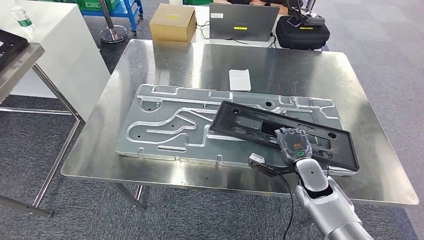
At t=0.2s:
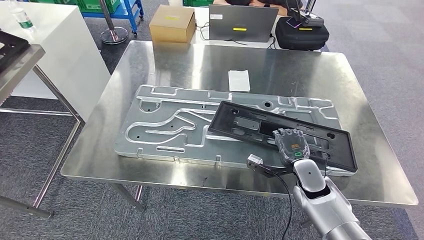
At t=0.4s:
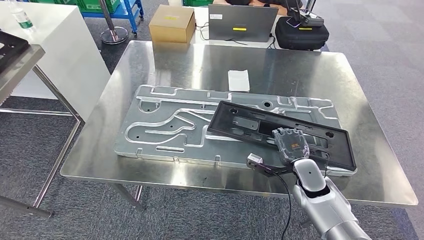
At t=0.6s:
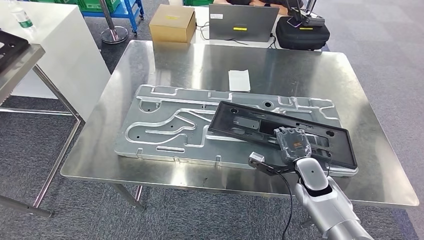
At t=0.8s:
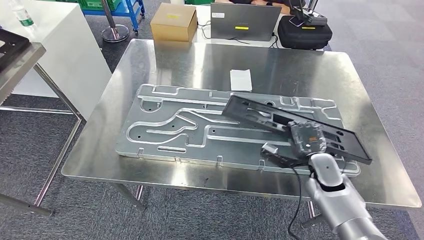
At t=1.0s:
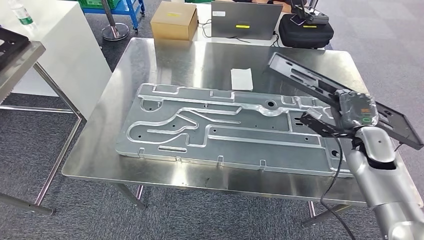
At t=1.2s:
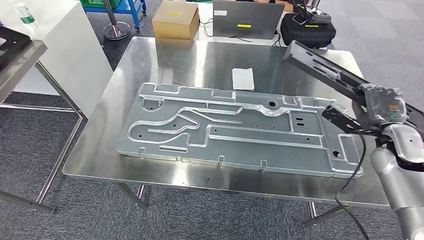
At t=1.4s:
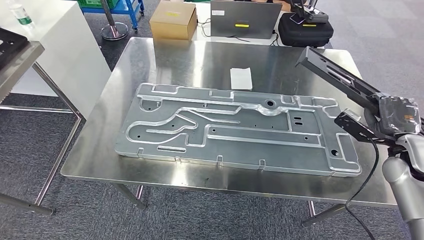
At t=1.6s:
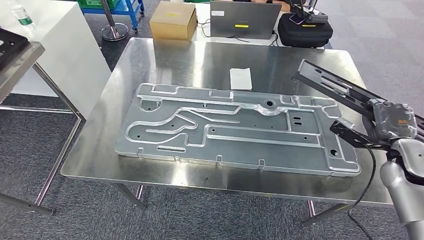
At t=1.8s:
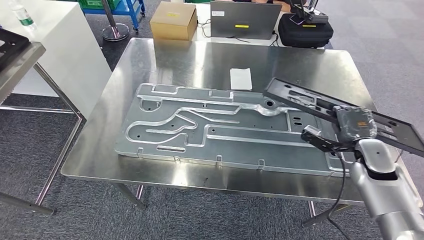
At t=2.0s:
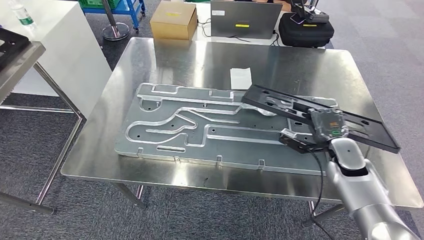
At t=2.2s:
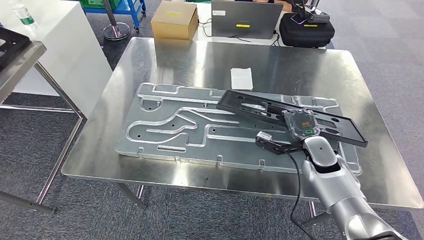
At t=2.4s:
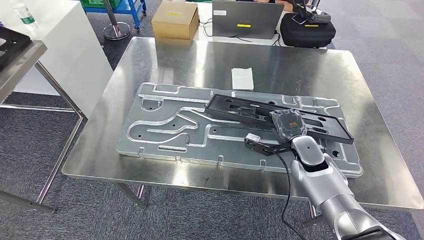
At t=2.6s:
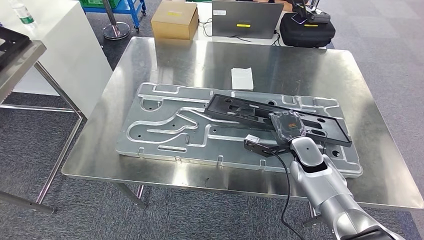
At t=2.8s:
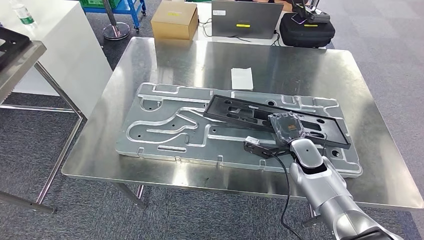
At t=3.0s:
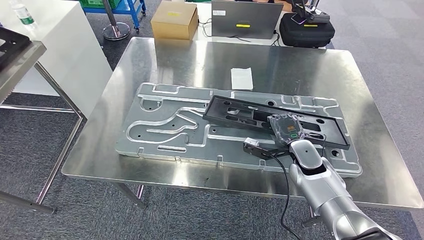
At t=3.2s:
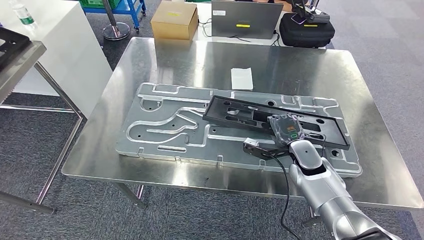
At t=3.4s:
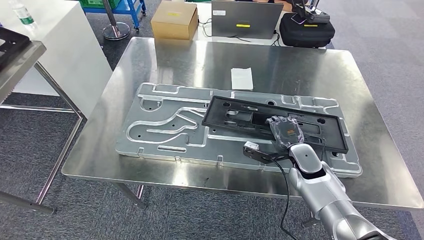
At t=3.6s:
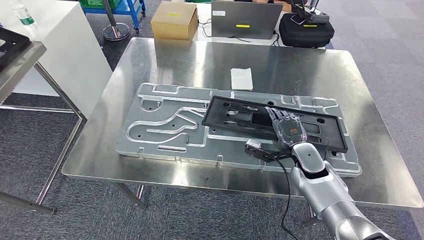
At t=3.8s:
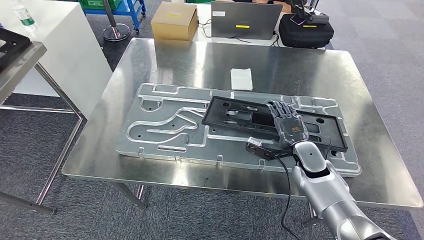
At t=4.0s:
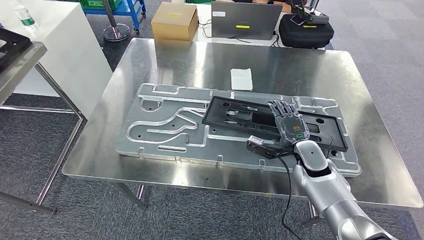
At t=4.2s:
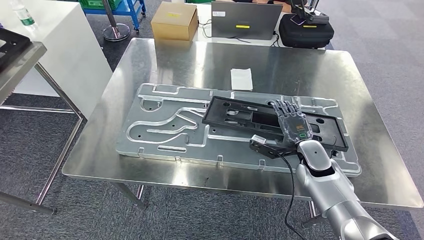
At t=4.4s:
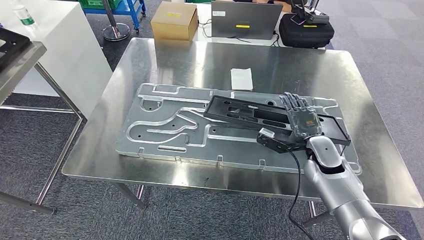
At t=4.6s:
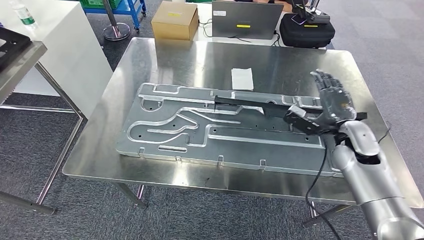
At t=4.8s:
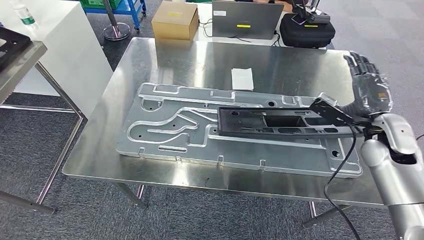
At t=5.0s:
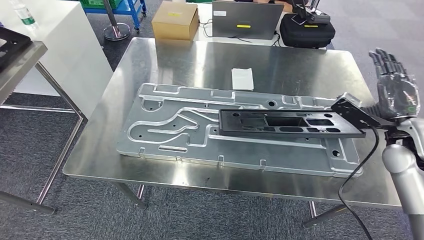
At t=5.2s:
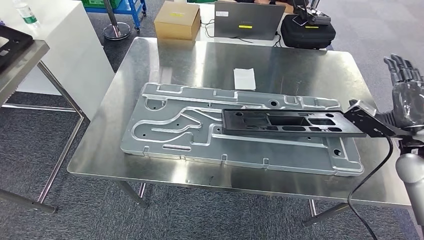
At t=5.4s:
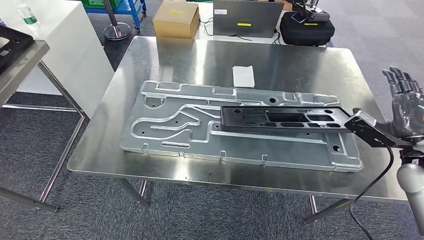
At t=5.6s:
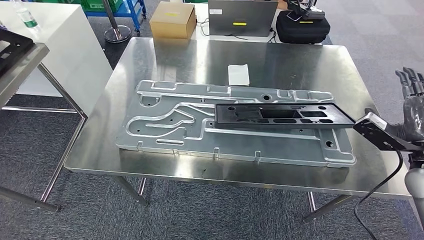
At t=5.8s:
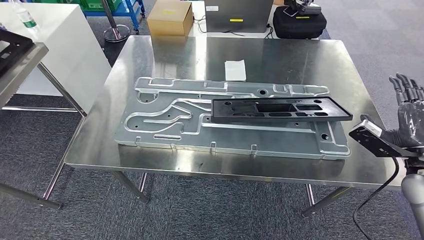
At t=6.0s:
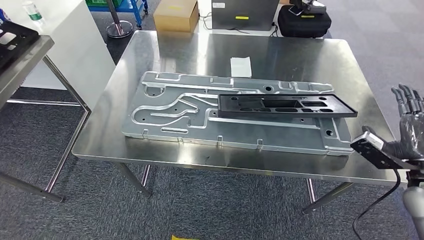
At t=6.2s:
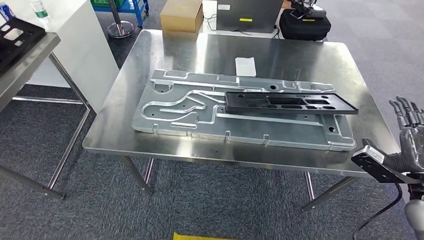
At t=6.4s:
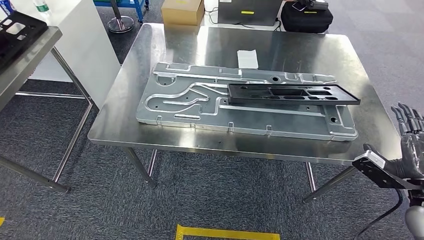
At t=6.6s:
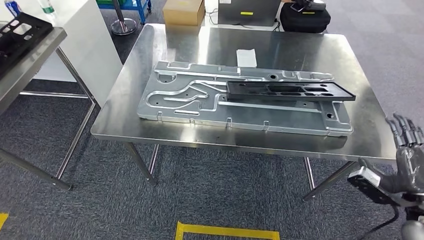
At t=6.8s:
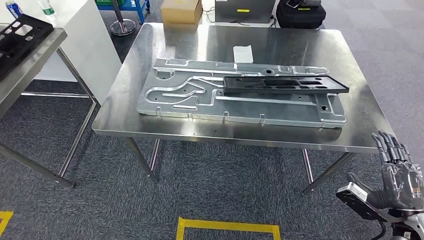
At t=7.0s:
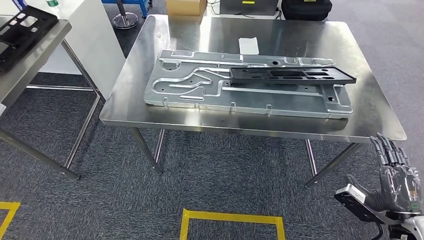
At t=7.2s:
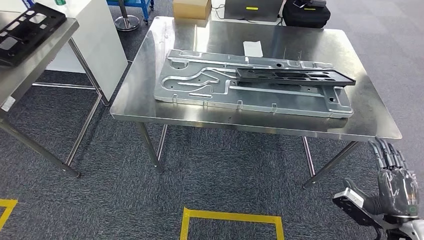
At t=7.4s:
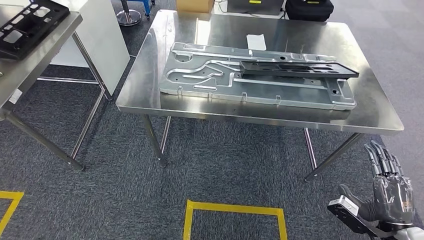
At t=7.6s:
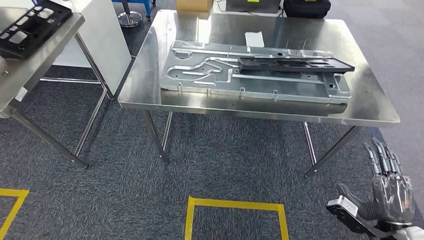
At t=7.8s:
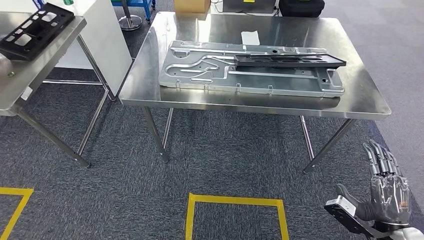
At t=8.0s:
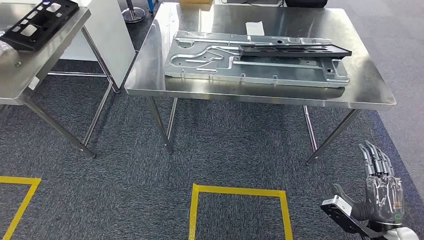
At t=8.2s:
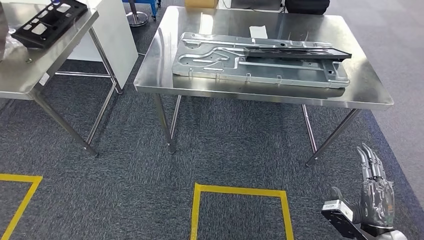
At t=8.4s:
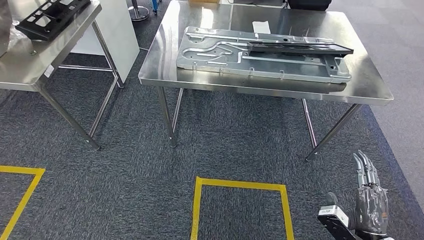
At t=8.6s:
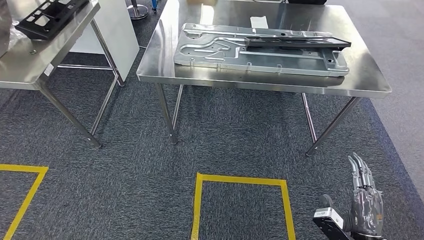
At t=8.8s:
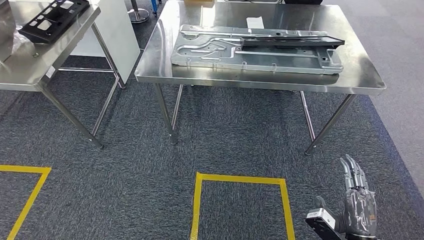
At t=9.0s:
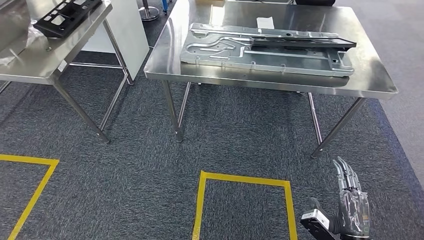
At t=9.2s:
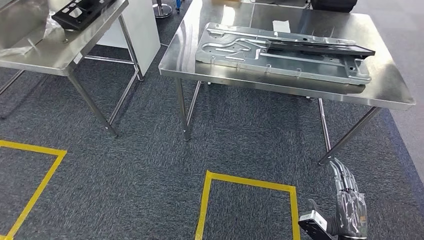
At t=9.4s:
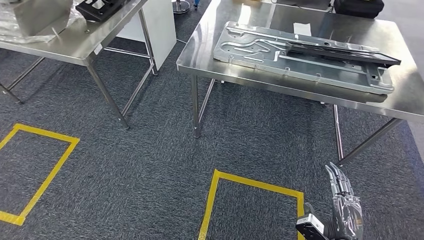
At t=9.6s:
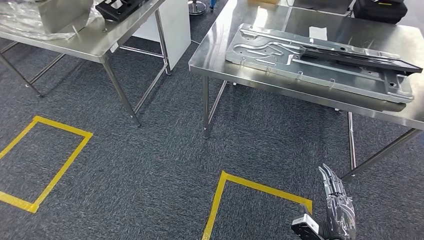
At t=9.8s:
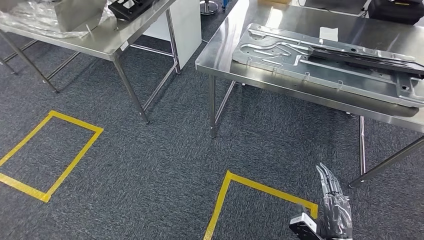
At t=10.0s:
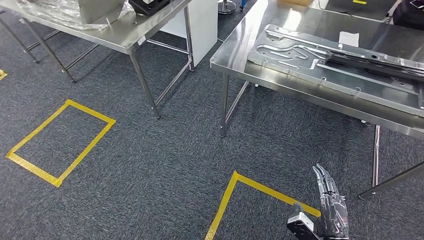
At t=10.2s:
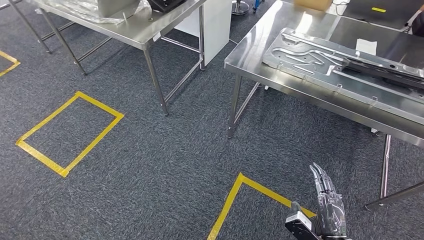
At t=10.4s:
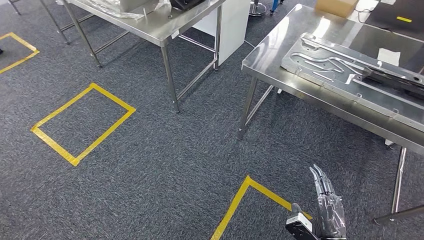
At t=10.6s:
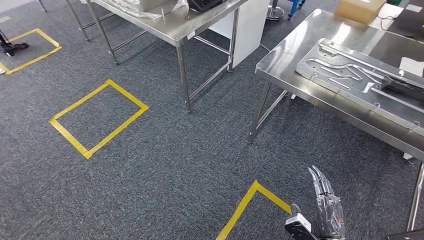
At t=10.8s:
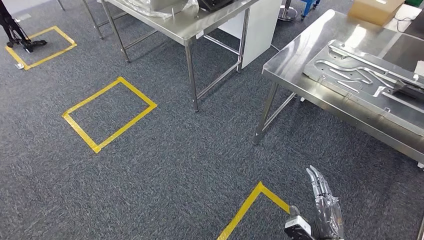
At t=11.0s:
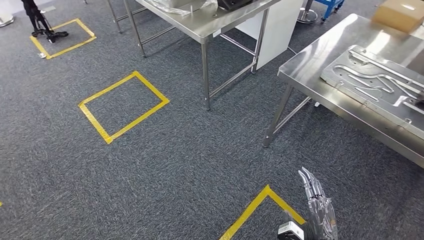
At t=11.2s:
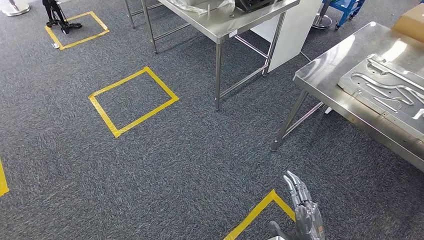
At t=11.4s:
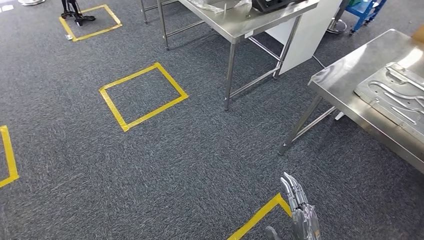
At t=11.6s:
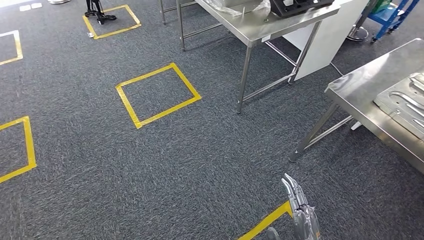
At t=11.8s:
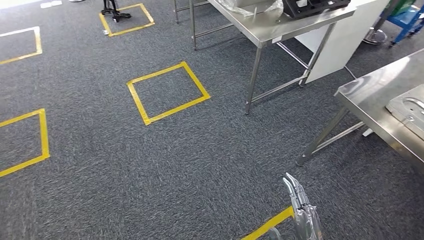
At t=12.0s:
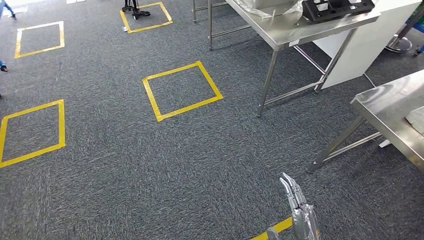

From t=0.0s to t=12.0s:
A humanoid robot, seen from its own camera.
Step, from t=0.0s to t=8.8s: Insert the large parts into the corresponding slots on the workbench.
From t=3.0s to t=4.4s: The hands make only small movements.

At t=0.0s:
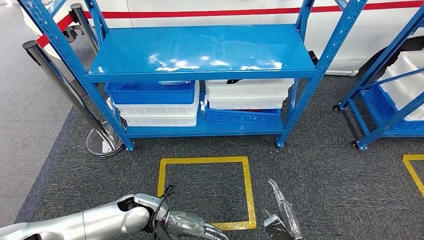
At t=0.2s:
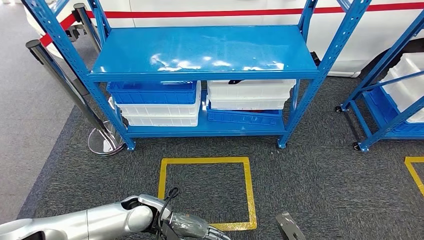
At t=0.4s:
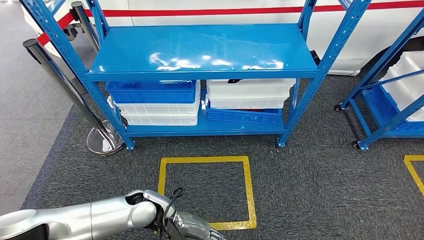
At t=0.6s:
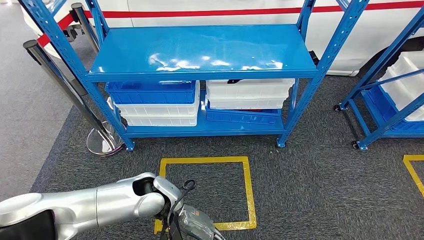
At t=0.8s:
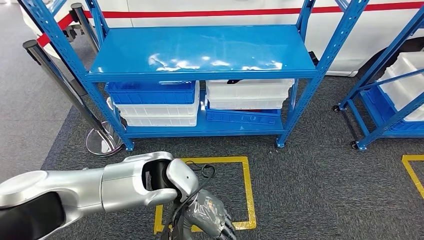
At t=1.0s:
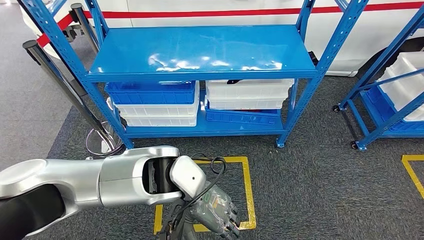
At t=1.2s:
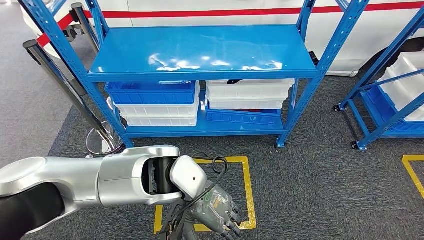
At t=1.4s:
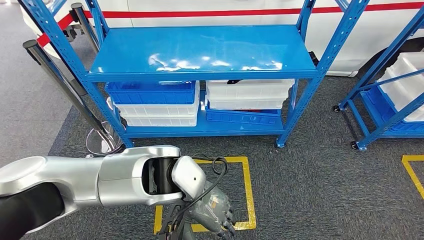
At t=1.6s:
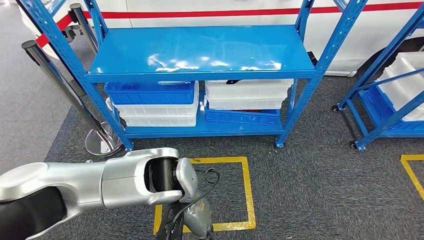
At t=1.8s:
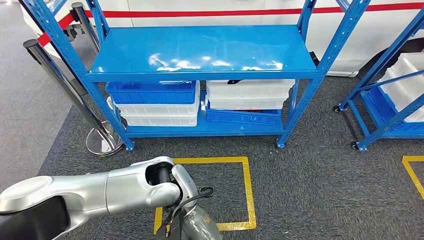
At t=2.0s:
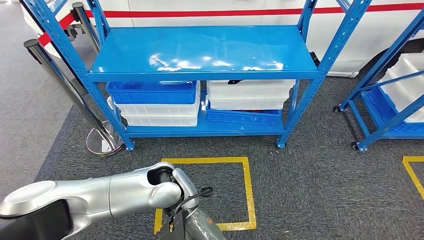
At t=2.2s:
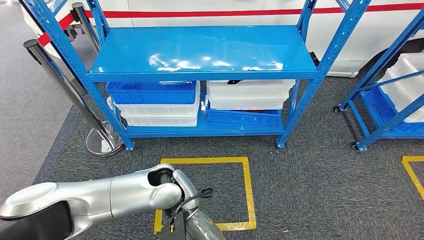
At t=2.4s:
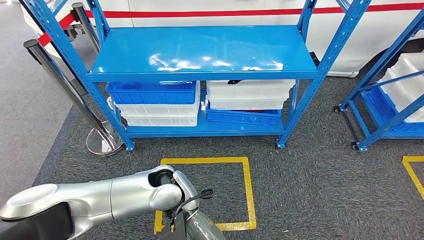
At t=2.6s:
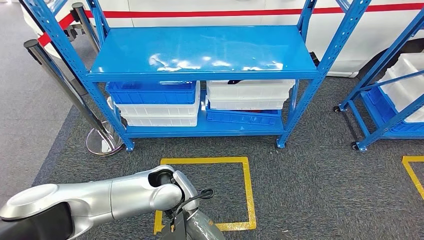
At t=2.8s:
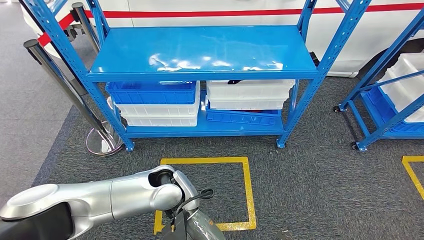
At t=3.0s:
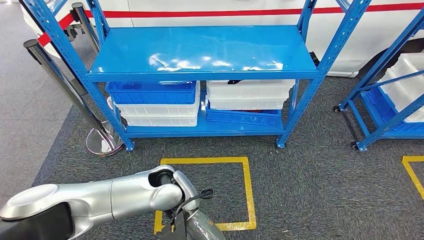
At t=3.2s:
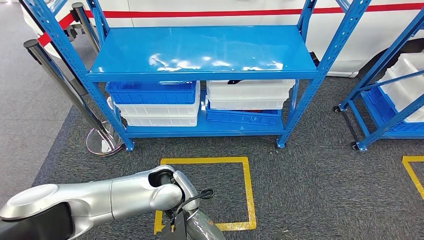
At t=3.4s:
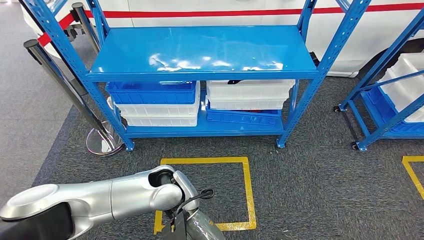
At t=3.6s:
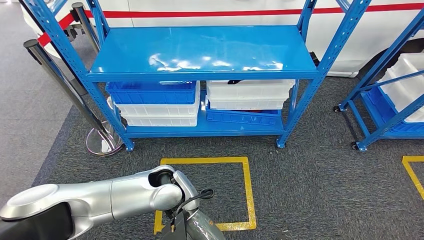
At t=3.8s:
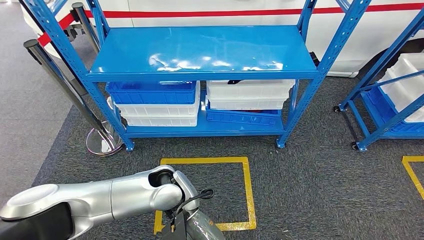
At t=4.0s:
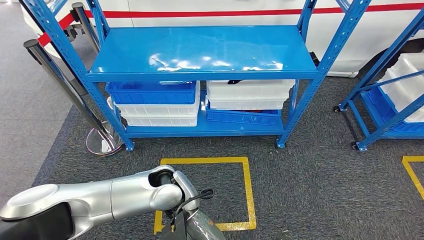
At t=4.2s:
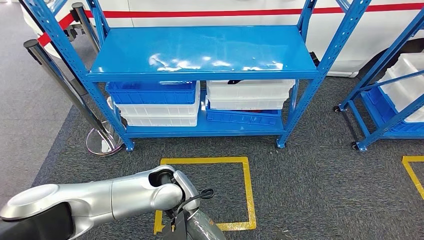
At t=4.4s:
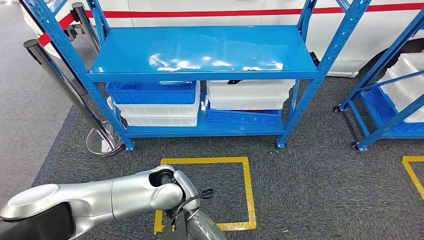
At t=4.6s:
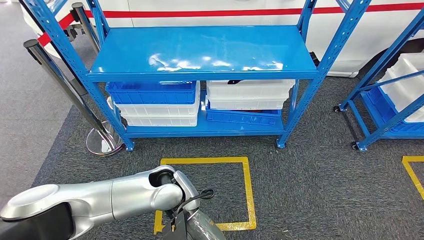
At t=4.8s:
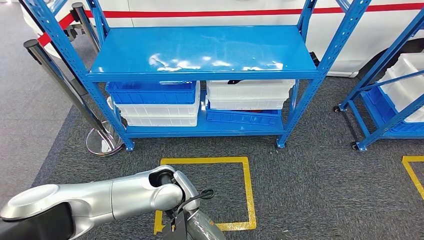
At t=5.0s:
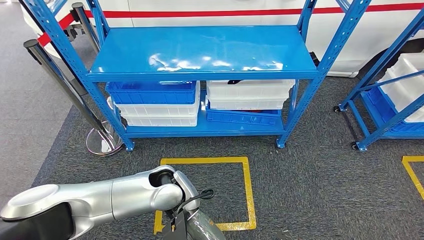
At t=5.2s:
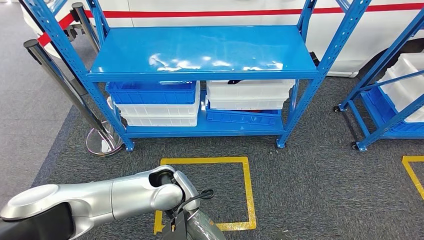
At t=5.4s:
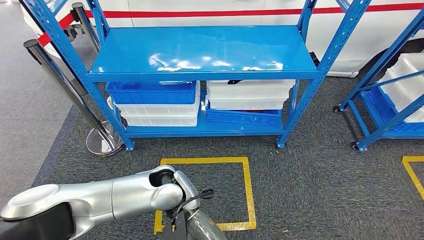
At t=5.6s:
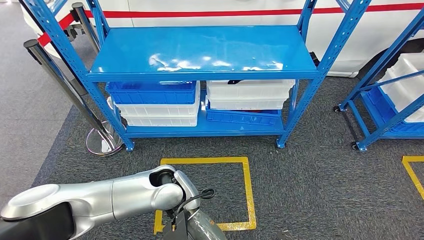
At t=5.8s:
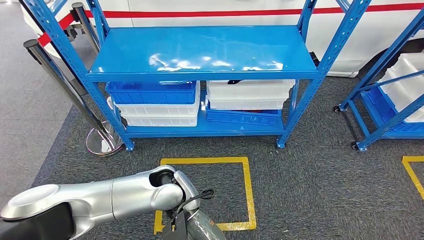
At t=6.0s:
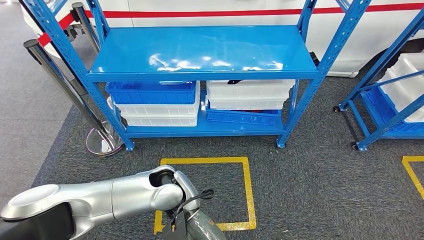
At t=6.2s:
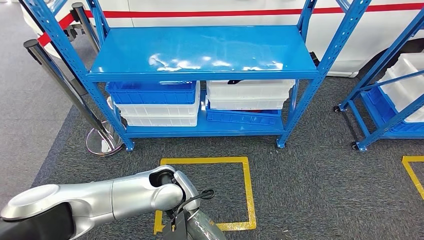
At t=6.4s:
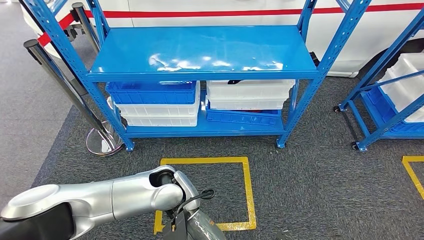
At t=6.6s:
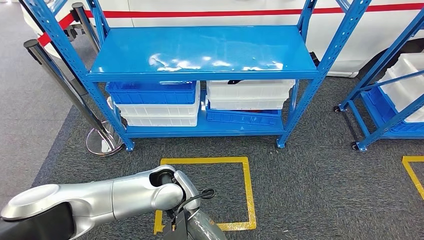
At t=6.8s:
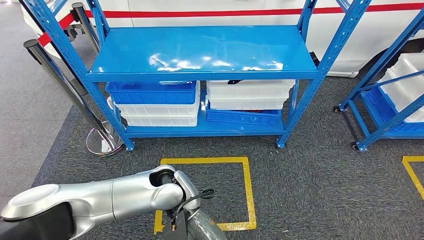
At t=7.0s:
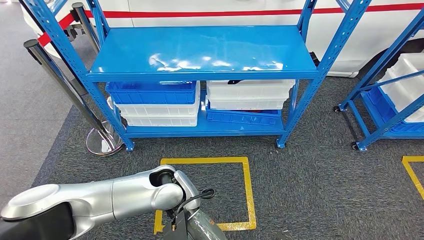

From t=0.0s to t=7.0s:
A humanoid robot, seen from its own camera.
From t=1.4s to t=2.8s: The left hand travels downward by approximately 10 cm.
From t=2.8s to t=7.0s: Neither hand changes place.
